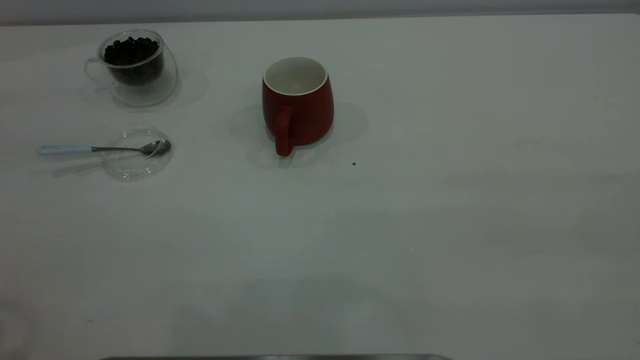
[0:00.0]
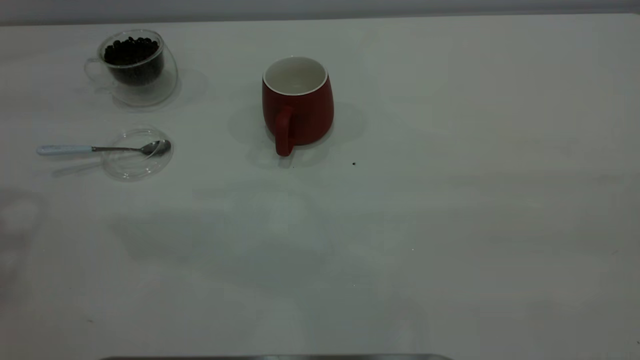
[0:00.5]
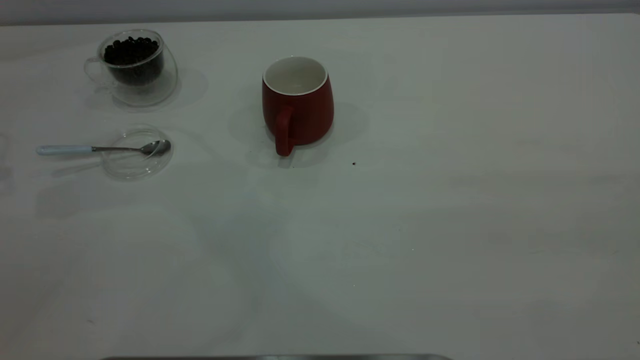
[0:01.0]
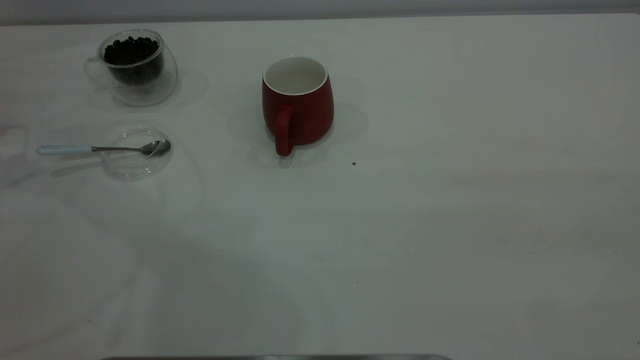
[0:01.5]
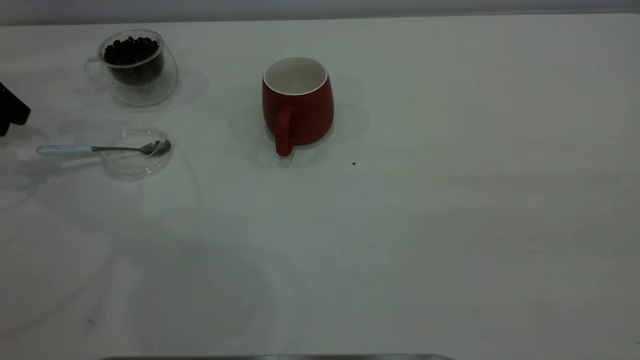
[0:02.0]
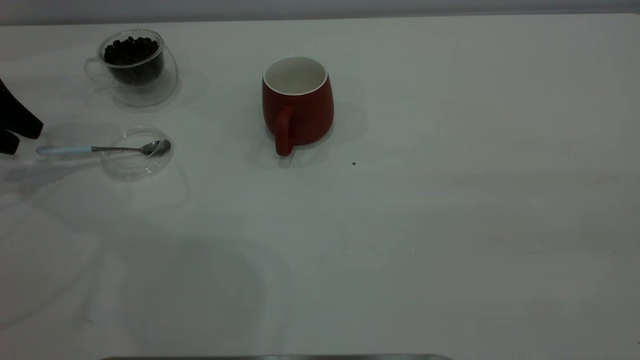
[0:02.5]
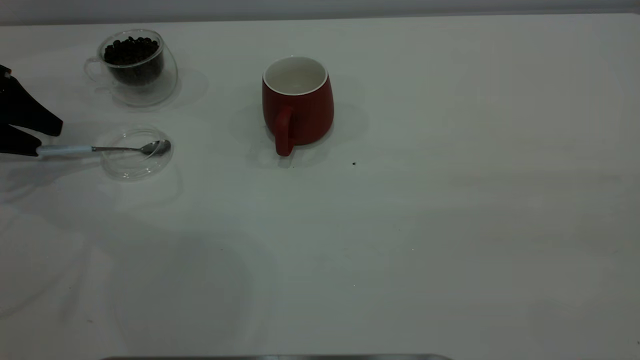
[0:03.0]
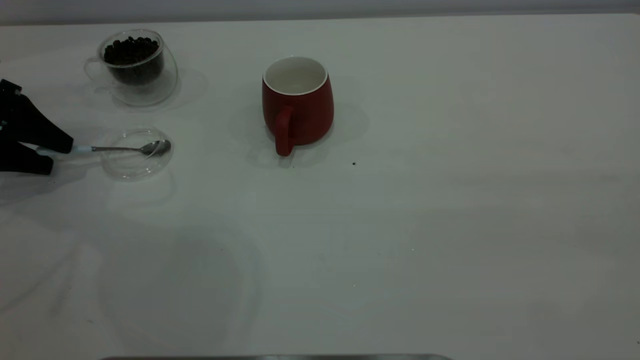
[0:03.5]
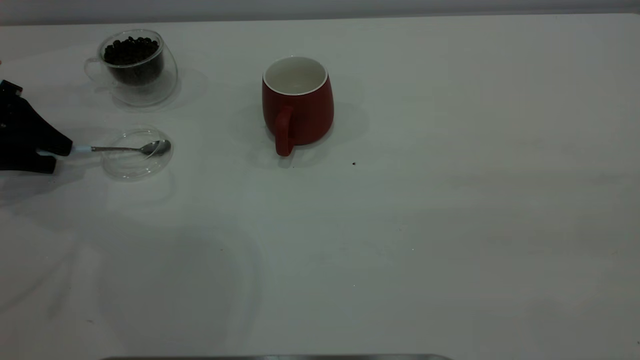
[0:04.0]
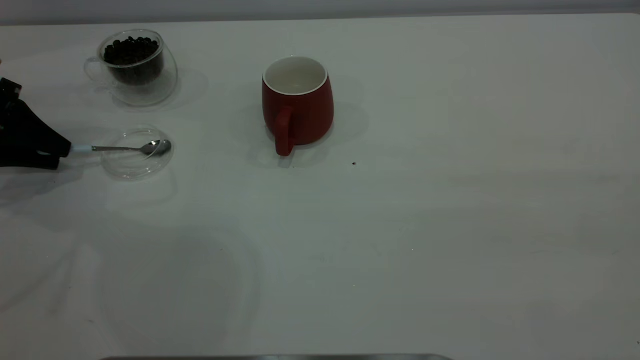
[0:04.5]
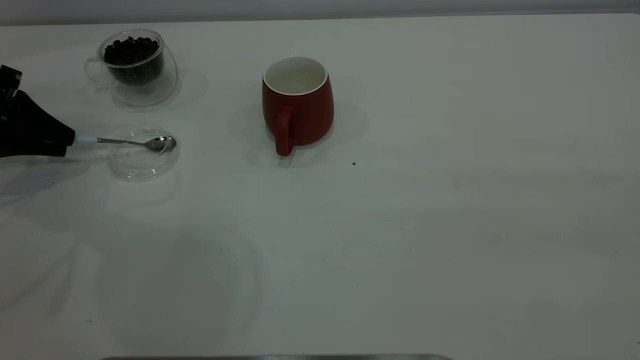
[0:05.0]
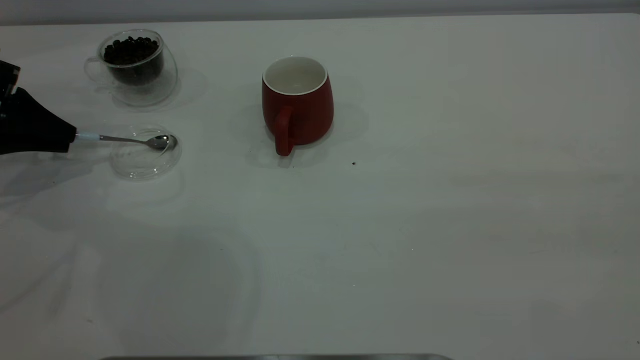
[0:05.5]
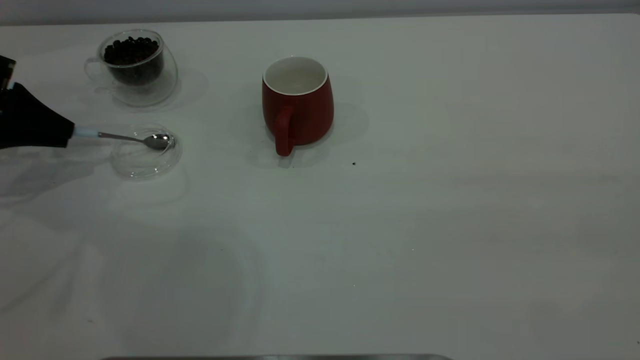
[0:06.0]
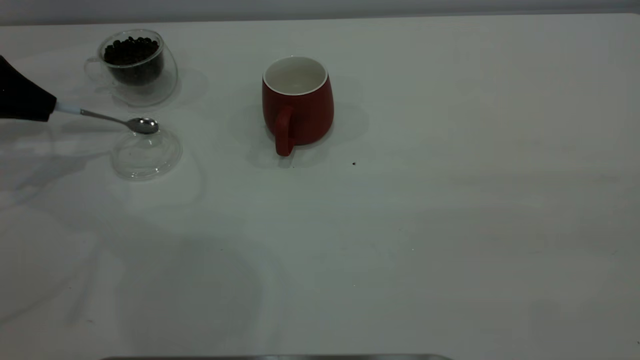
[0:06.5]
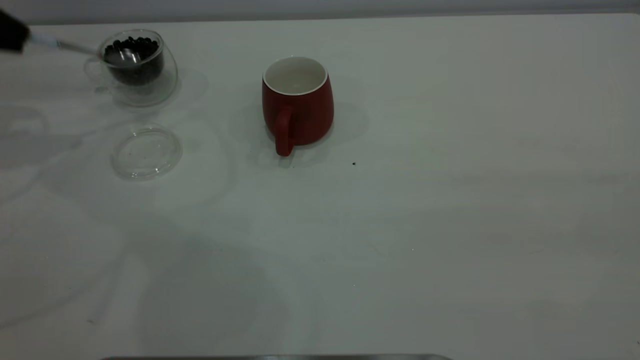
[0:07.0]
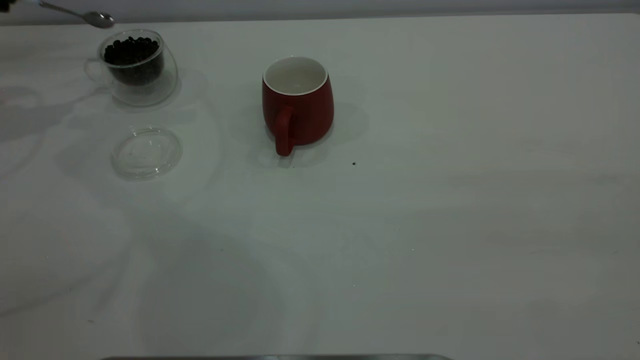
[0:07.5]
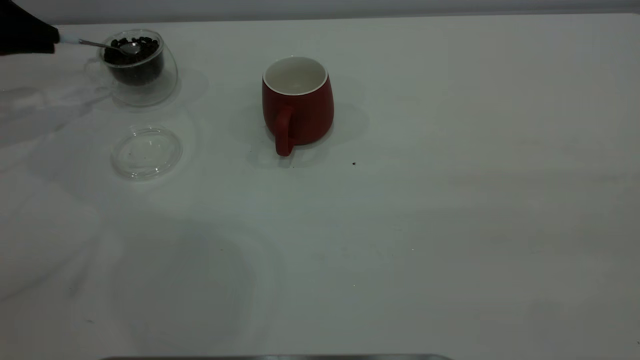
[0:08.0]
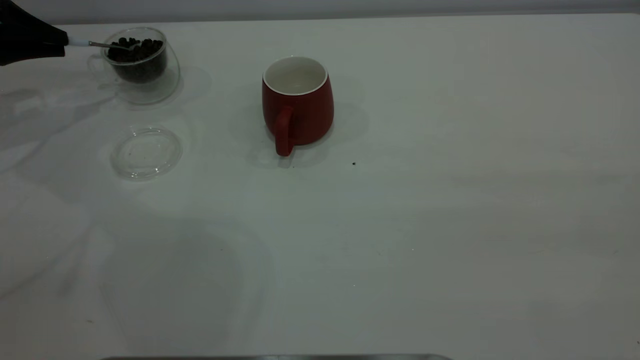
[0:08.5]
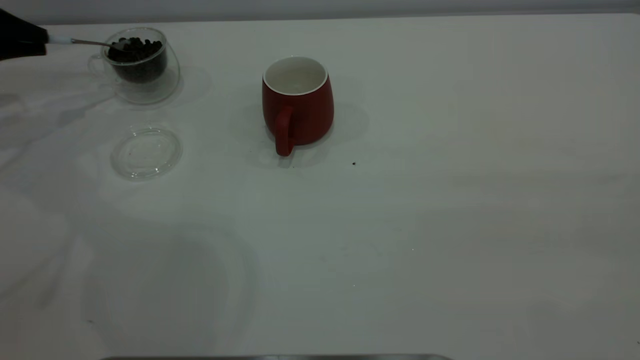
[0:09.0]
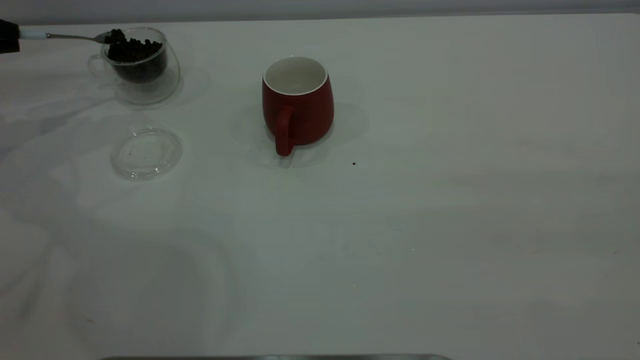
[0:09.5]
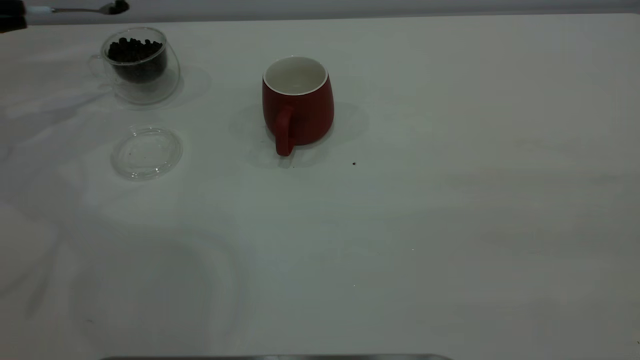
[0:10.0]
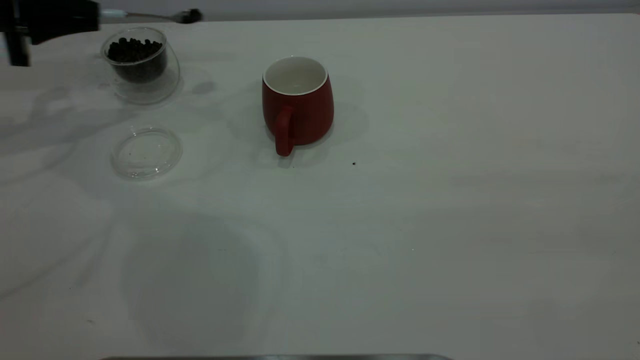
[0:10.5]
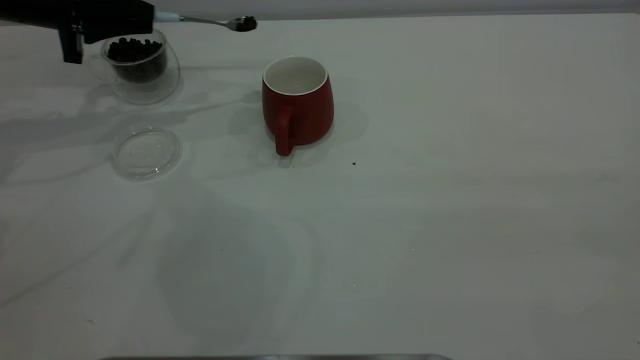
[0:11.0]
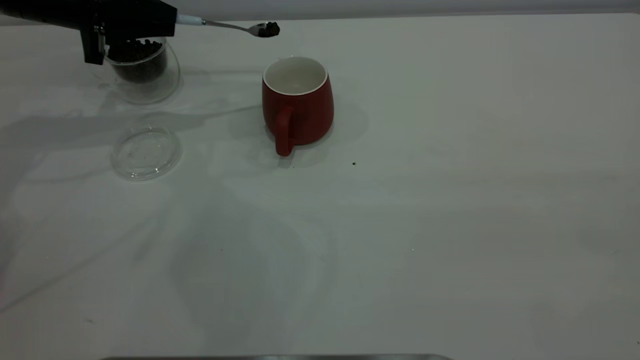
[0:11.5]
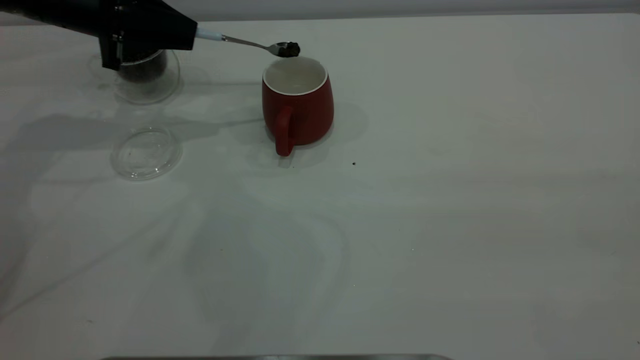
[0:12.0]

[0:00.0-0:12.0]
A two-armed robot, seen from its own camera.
Task of the whole recording: the right gripper place the red cup in the center of the table, the left gripper take the blue spoon from the cup lid and scoop out the coffee beans from the coffee cup and put them into the red cup, the left gripper put the spoon back into the cup lid.
Step, 0:00.0 to 0:06.5: Pick up the spoon.
0:02.0 to 0:04.0: The left gripper heads downward, covering roughly 5 cm.
0:04.0 to 0:06.0: The left gripper closes up.
0:06.0 to 0:08.0: The left gripper is displaced forward by about 5 cm.
0:08.0 to 0:10.0: There are only small adjustments of the grippers.
0:10.0 to 0:12.0: The left gripper is displaced to the right by approximately 20 cm.

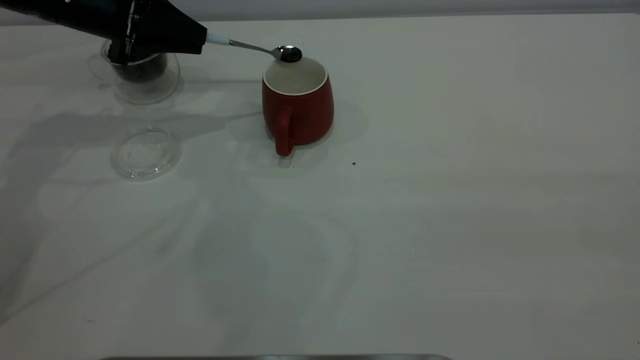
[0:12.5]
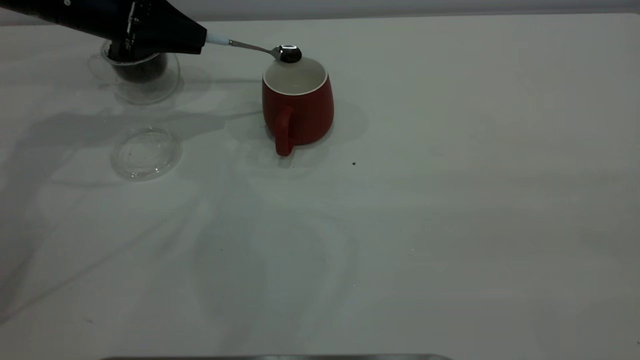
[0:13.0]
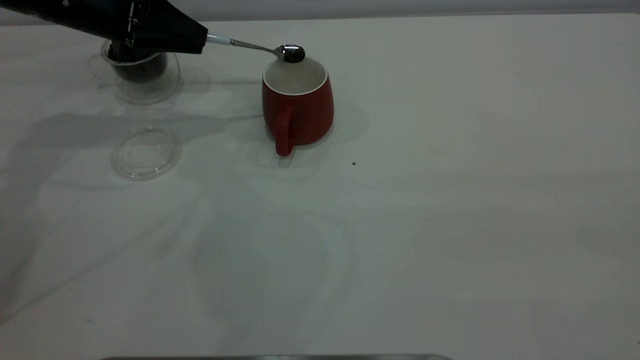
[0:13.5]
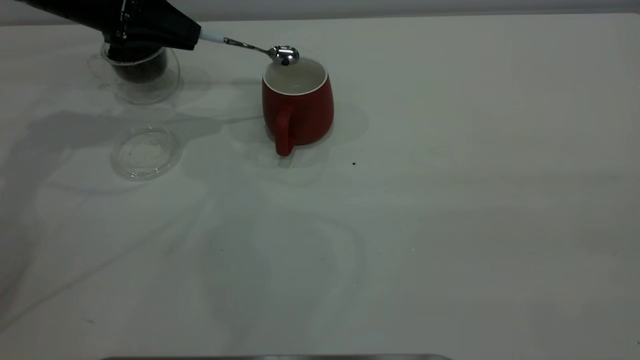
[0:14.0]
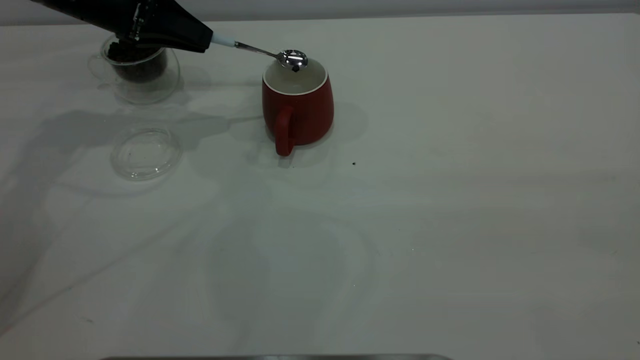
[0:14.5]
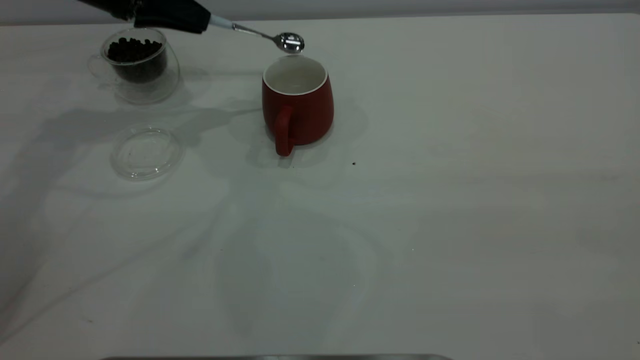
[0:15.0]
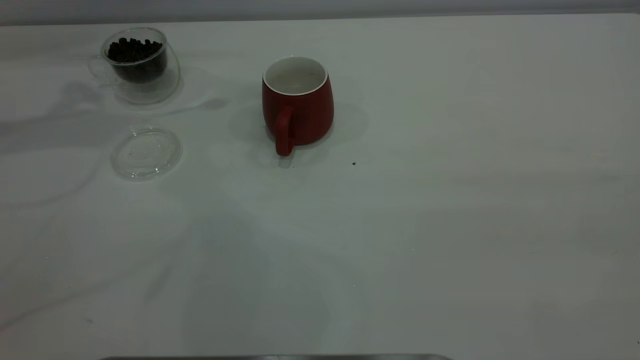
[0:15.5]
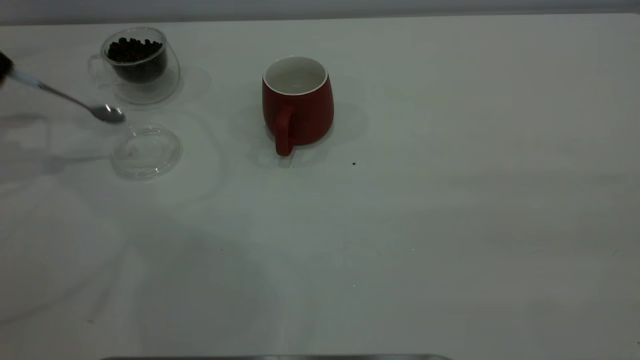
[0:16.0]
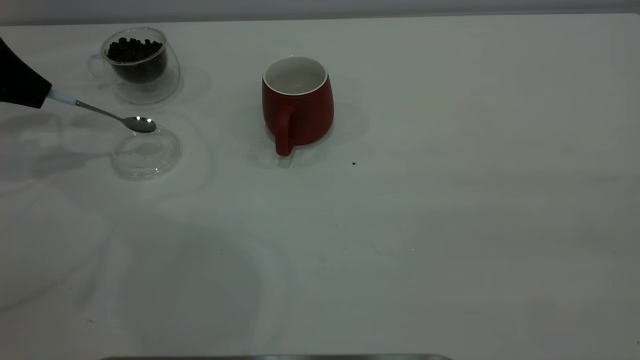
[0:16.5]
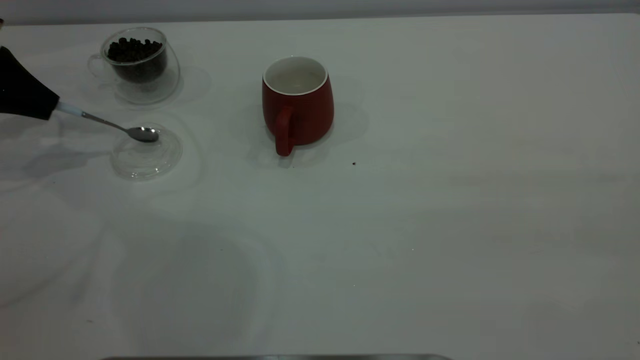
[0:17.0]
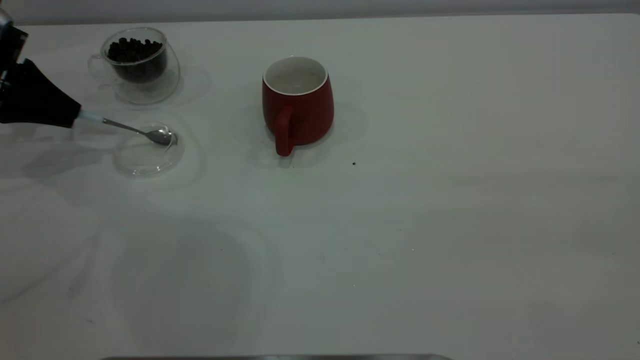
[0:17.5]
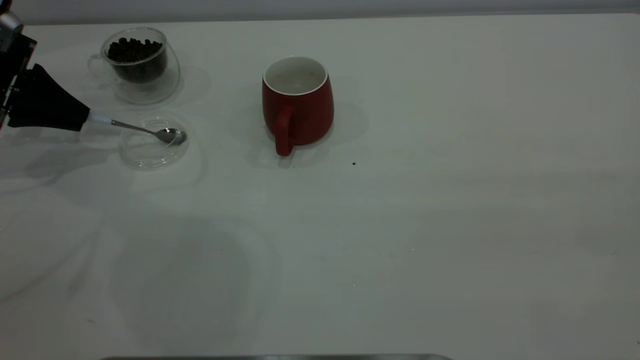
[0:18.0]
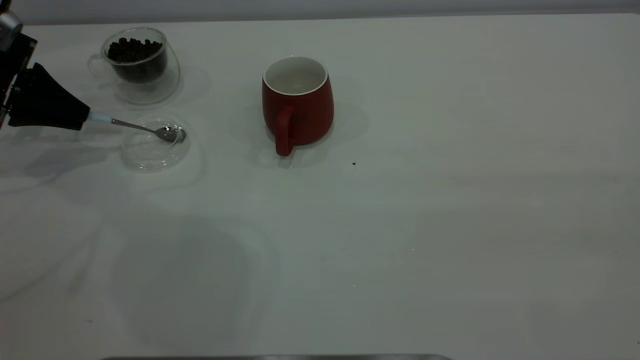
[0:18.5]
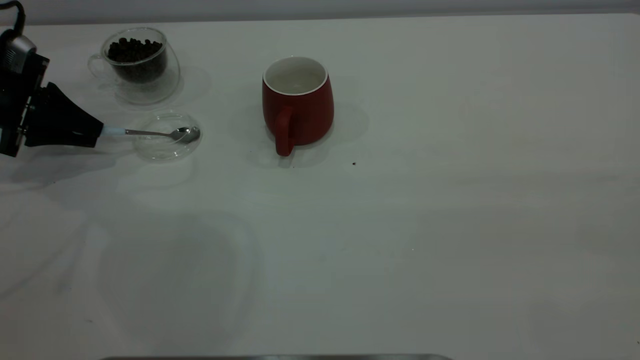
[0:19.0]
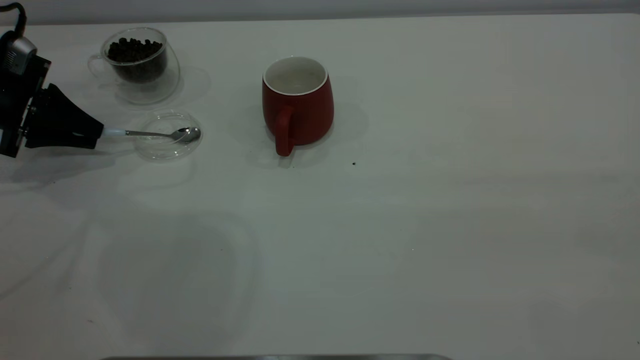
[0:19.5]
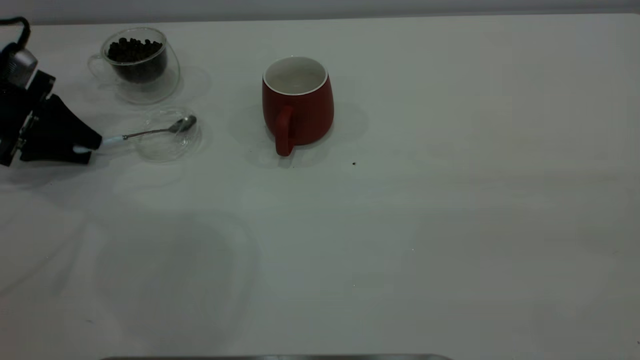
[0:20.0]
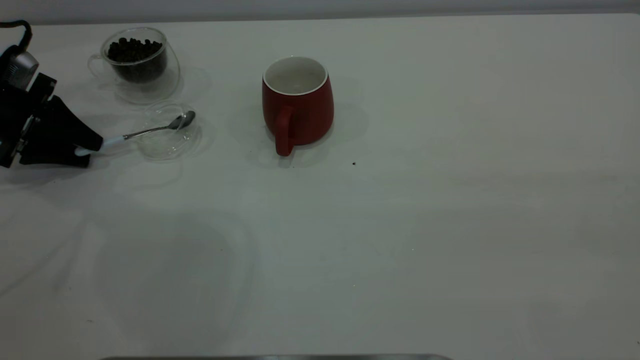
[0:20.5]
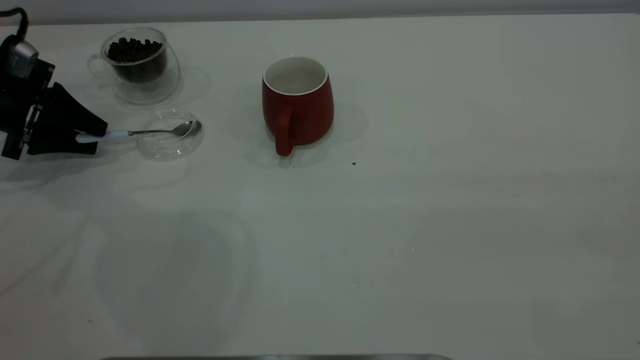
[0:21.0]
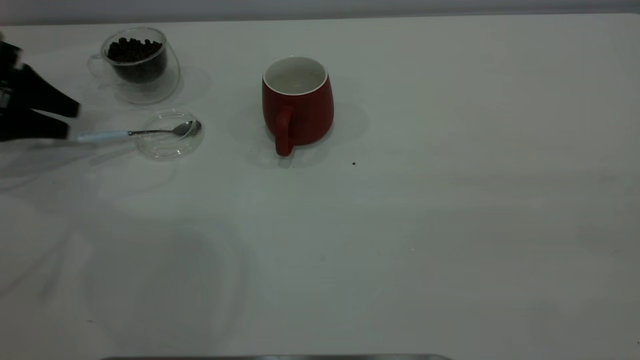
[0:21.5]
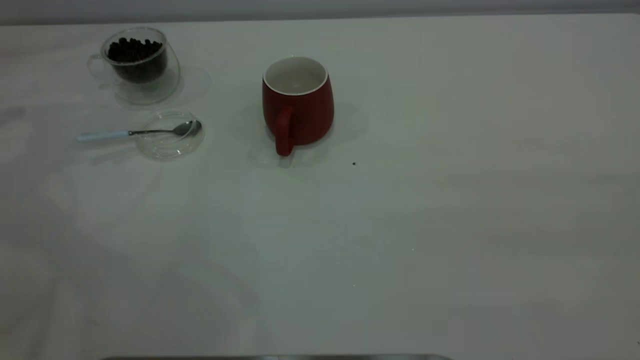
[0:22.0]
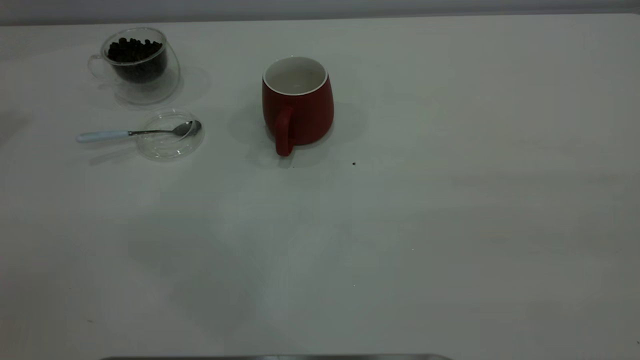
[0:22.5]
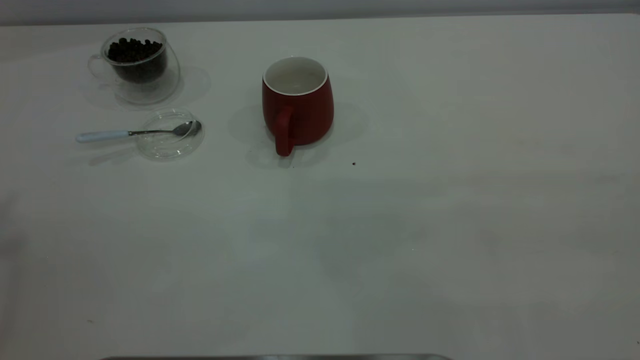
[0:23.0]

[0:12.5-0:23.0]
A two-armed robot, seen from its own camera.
Task of the whole recording: the right gripper place the red cup in the center of the table, the left gripper take the blue spoon from the cup lid and scoop out the coffee beans from the coffee cup and put them into the red cup, the left gripper put the spoon back into the cup lid.
Step, 0:12.5 to 0:15.0: Scoop a spoonful of beans into the cup.
Step, 0:15.5 to 0:21.5: Place the spoon back in its original place.
0:14.5 to 0:16.5: The left gripper heads to the left, covering roughly 15 cm.
0:16.5 to 0:19.0: The left gripper shifts some 10 cm downward.
0:19.0 to 0:21.0: The left gripper opens its fingers.
0:21.0 to 0:23.0: The left gripper heads upward, covering about 50 cm.
